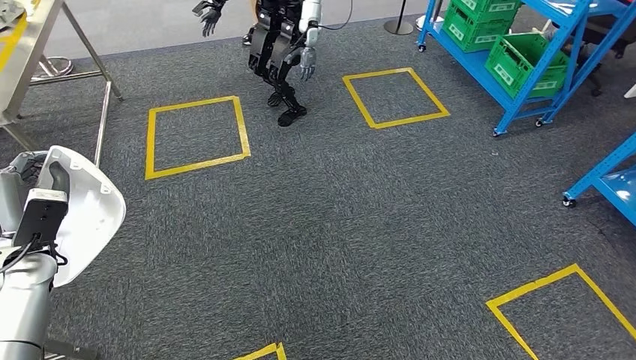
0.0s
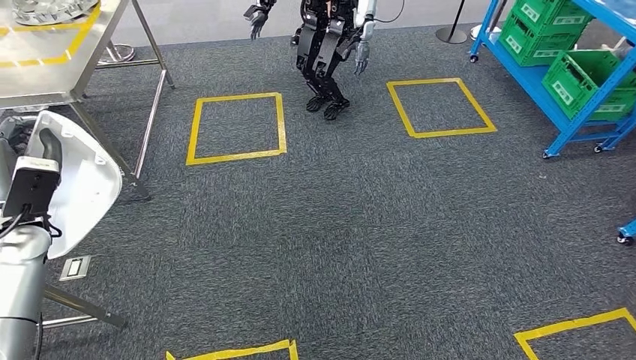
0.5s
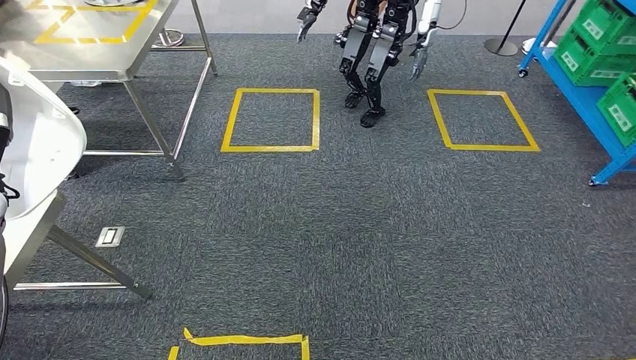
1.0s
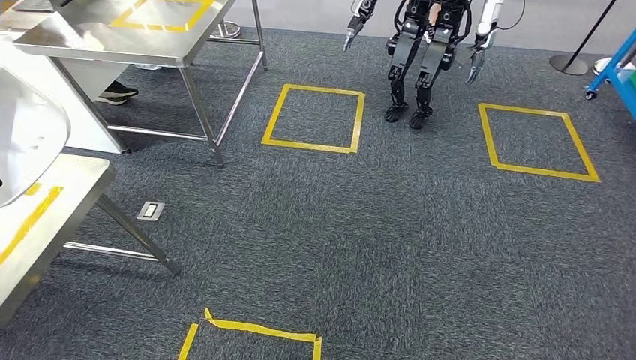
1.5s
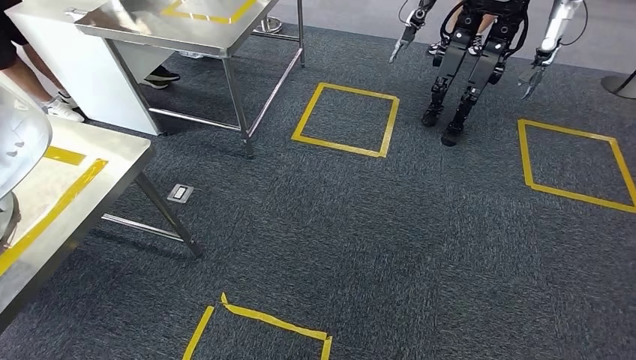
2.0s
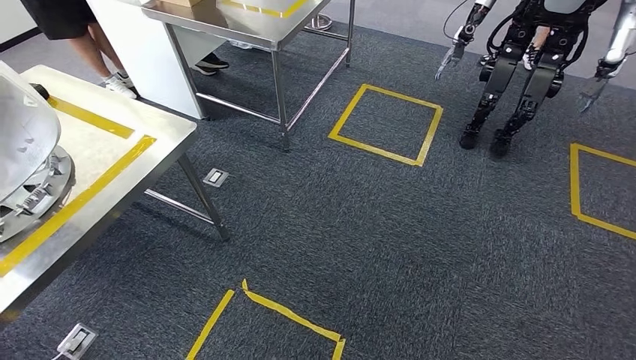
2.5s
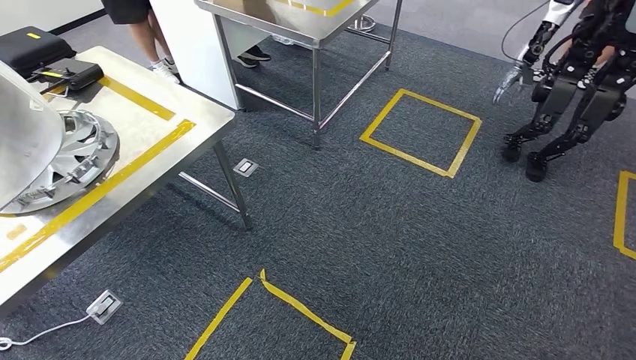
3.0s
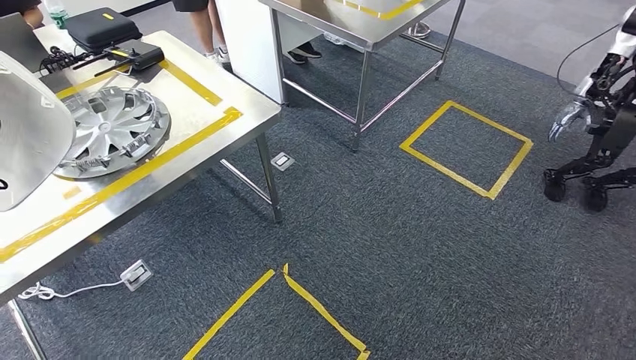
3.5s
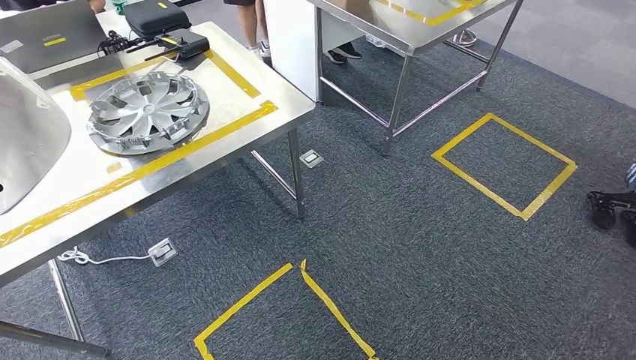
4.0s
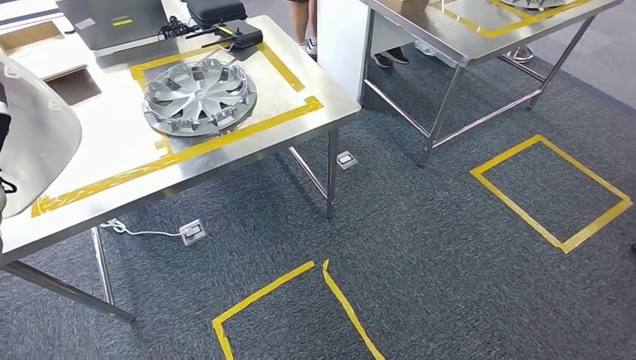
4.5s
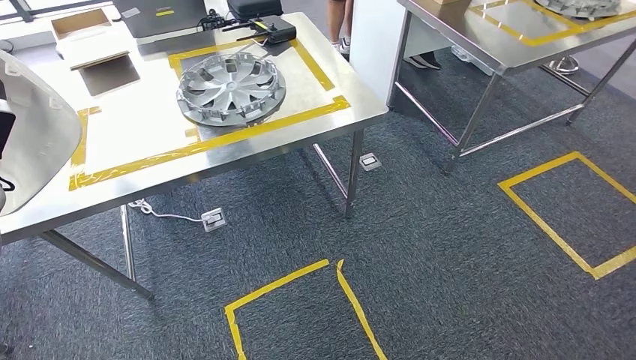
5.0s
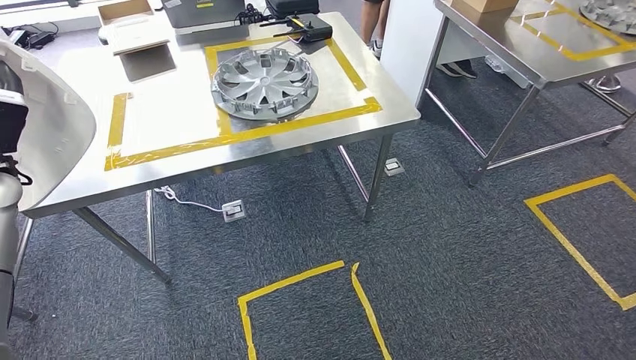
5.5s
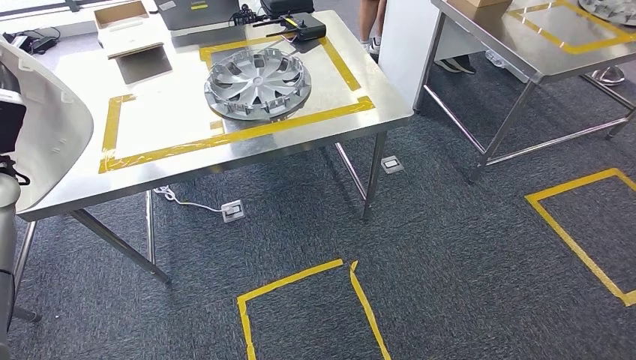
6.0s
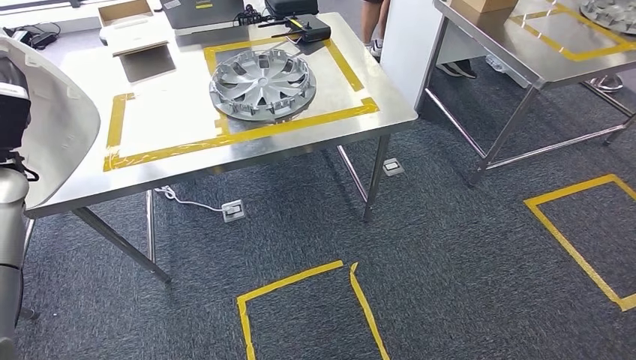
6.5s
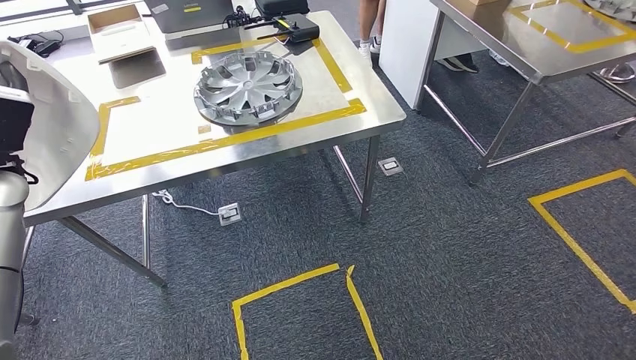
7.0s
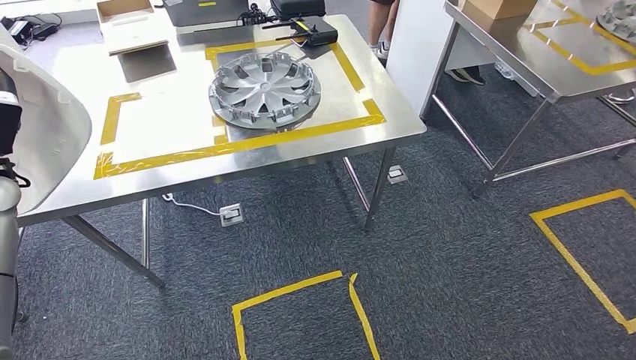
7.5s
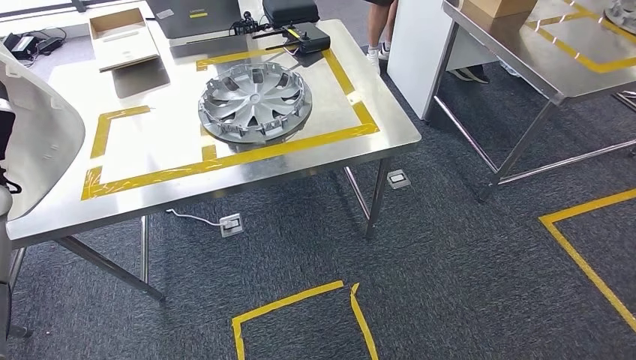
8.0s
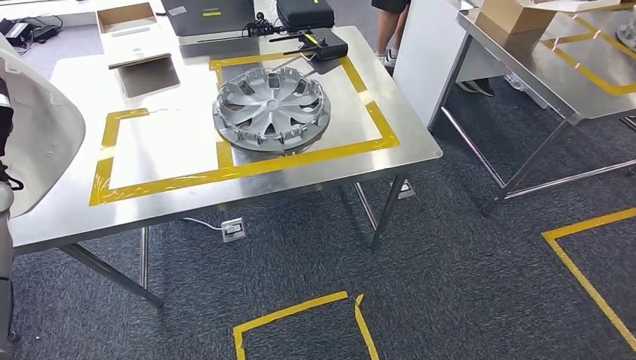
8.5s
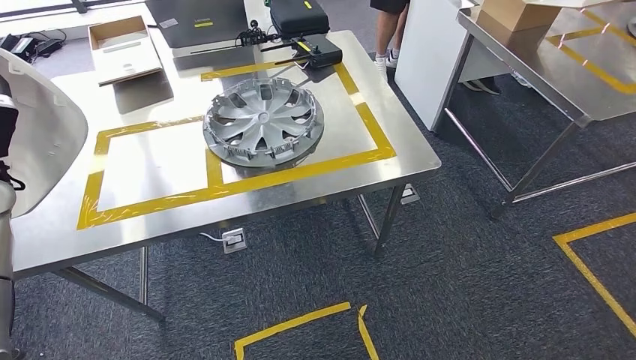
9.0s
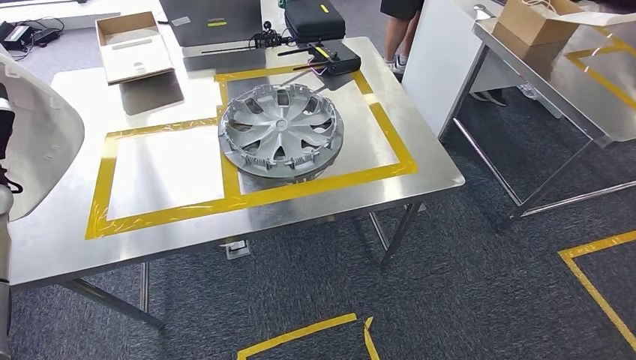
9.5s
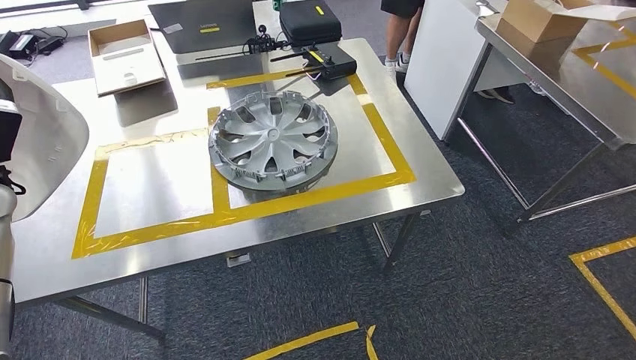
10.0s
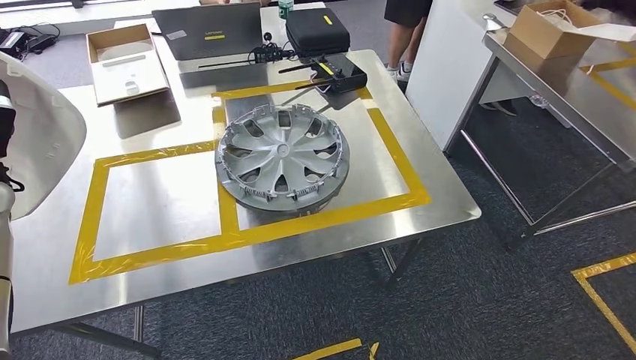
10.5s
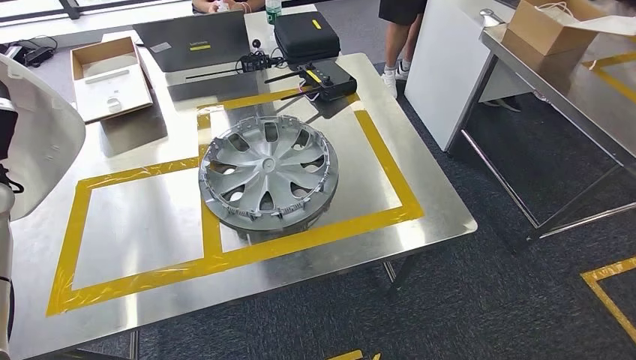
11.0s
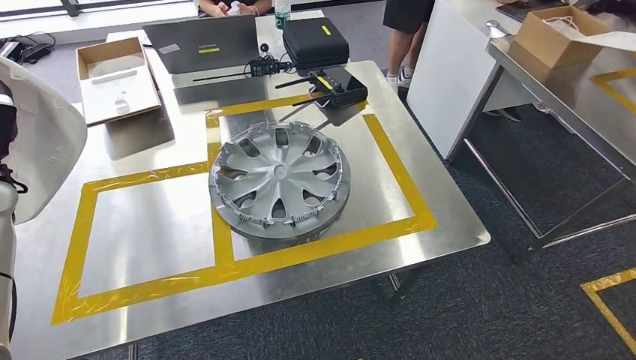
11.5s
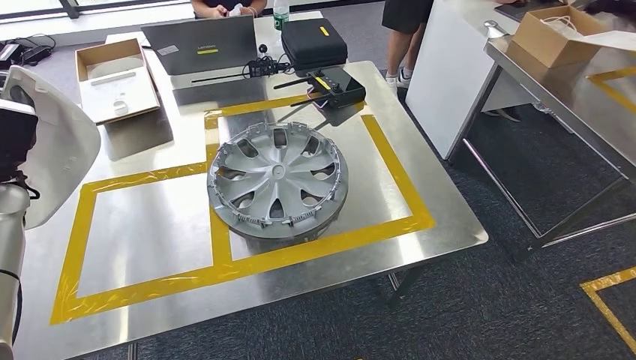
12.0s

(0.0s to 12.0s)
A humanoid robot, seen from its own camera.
Step, 0.0s - 8.5s: Move the large parts to the workbench.

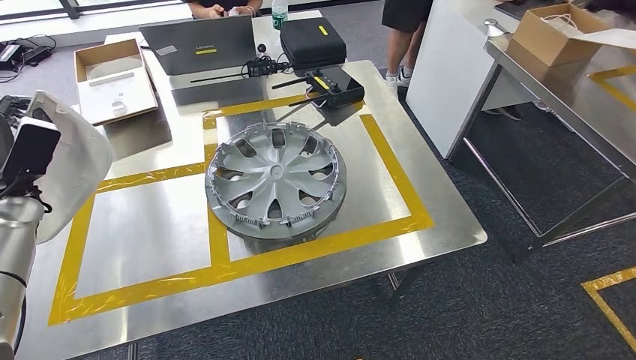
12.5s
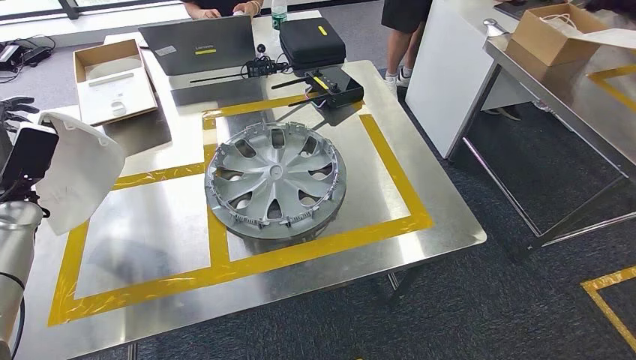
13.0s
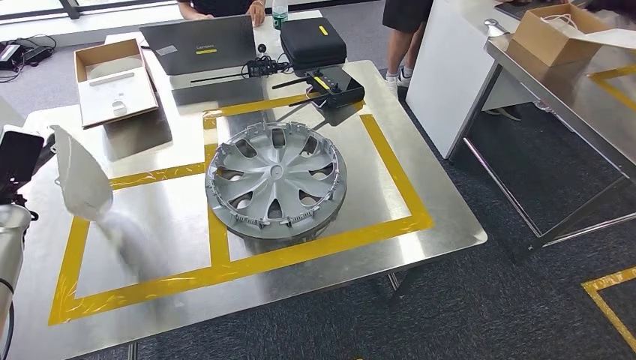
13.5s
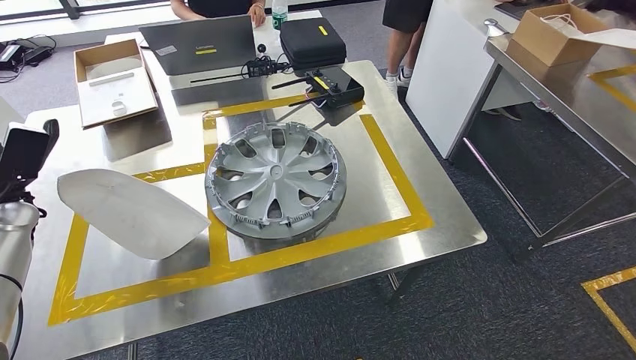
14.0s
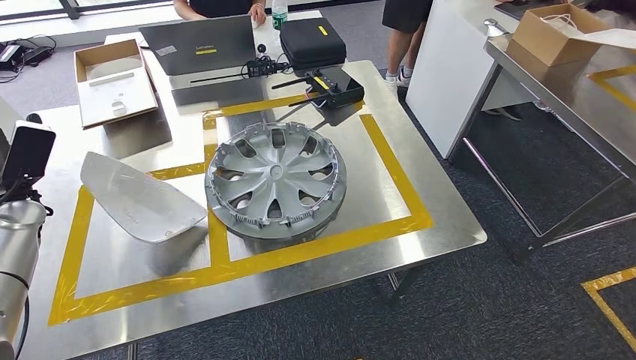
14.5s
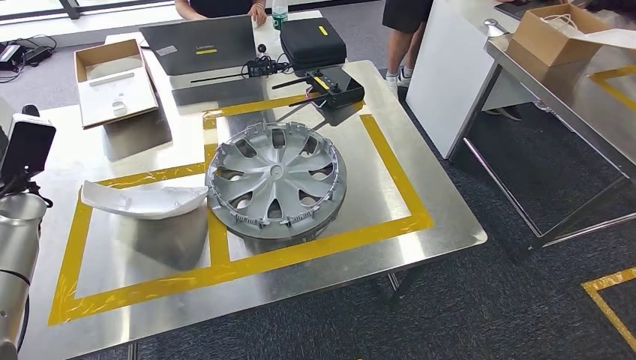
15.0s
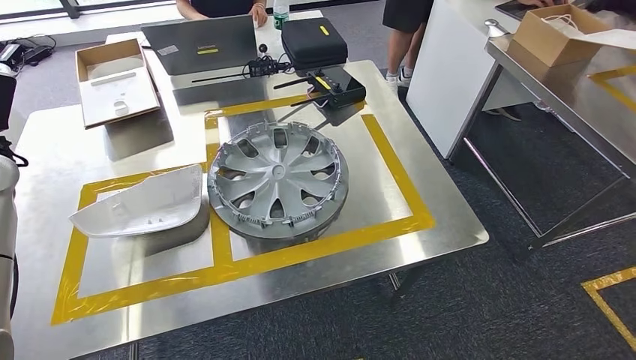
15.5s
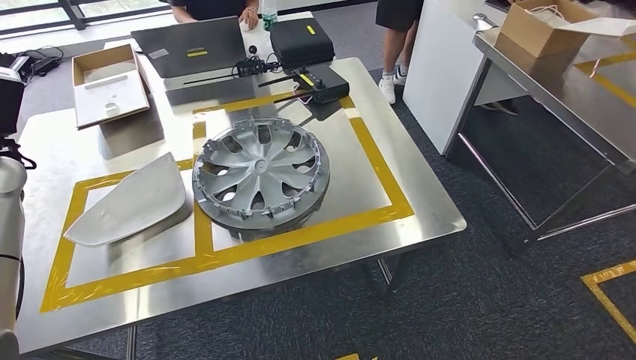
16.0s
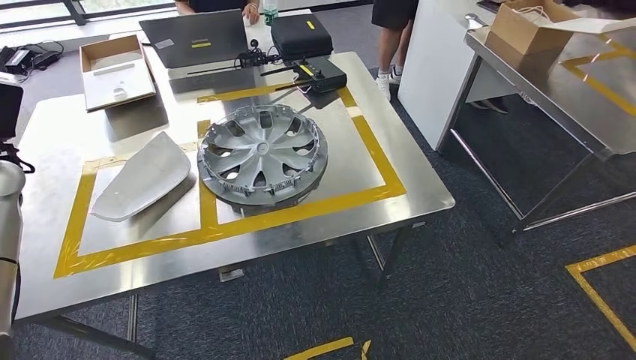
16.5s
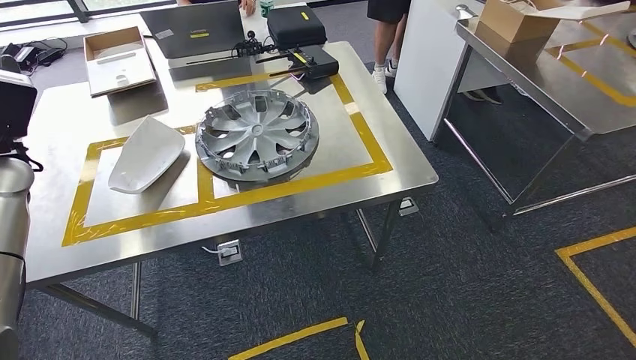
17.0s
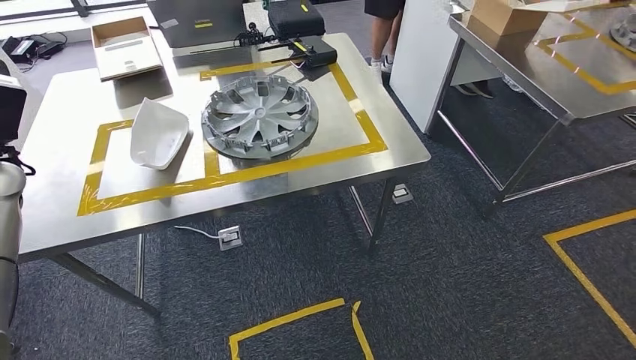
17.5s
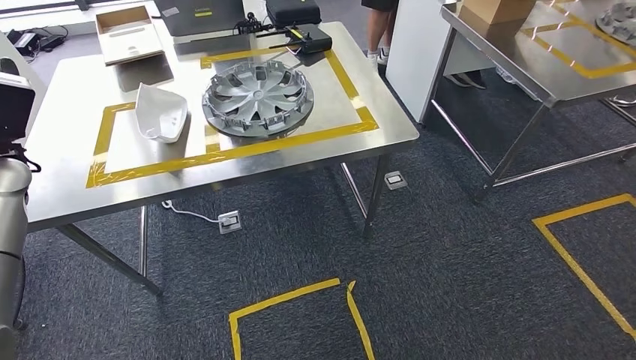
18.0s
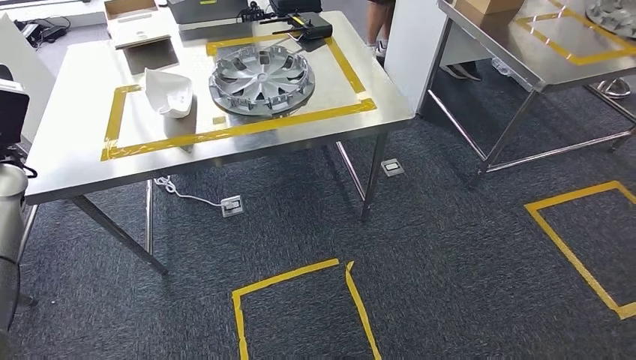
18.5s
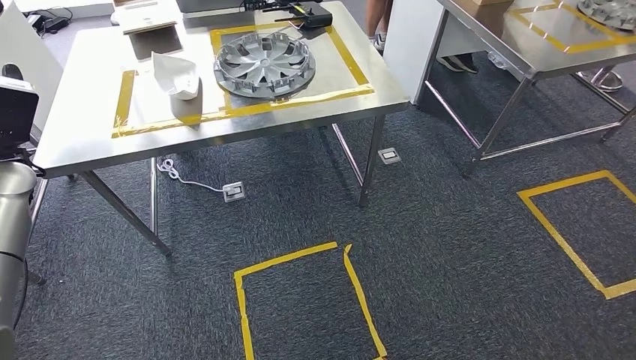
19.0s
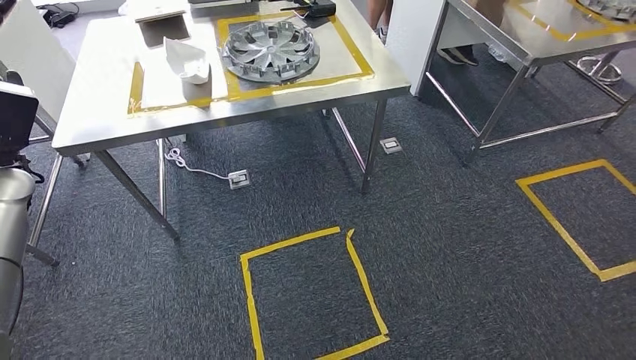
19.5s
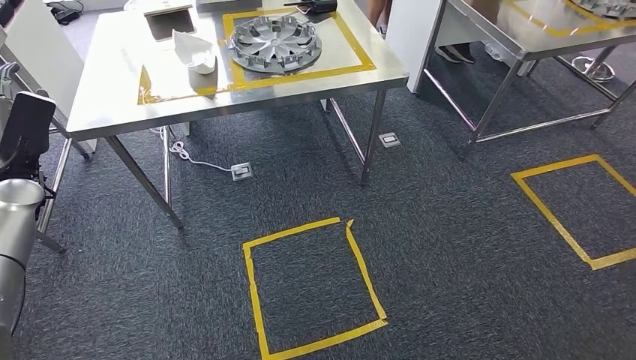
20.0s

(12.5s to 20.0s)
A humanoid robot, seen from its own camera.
Step, 12.5s - 15.0s: Insert the large parts into the corresponding slots on the workbench.
Step, 15.5s - 20.0s: Return to the initial position at the shelf.
12.5s - 14.5s: The hands stay close to where they were, moving slightly.

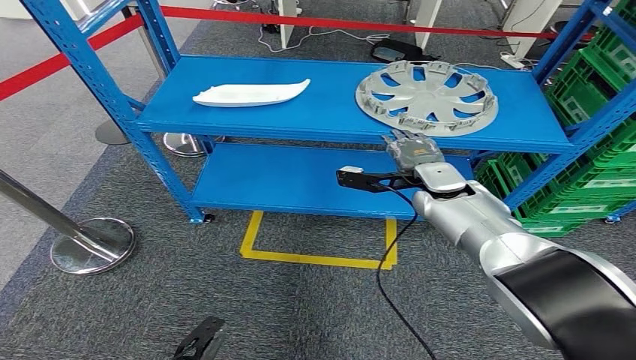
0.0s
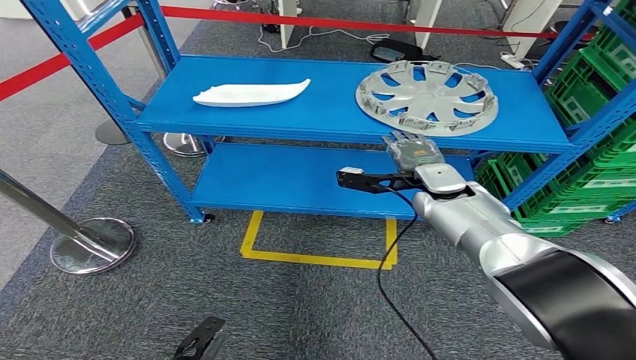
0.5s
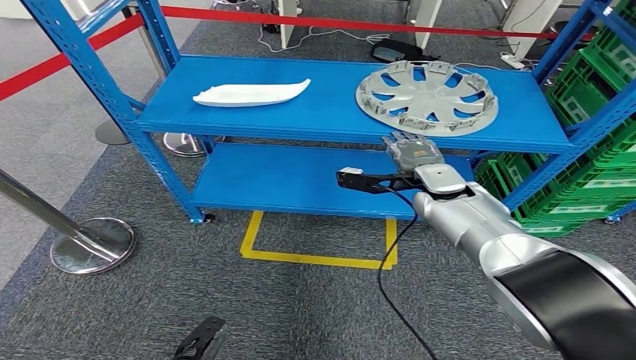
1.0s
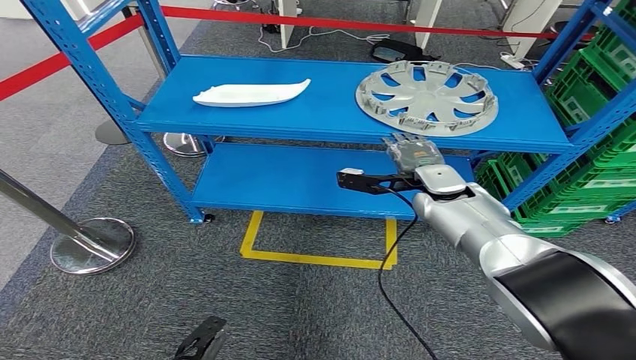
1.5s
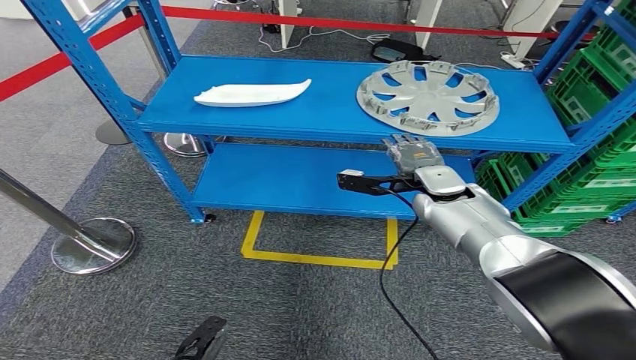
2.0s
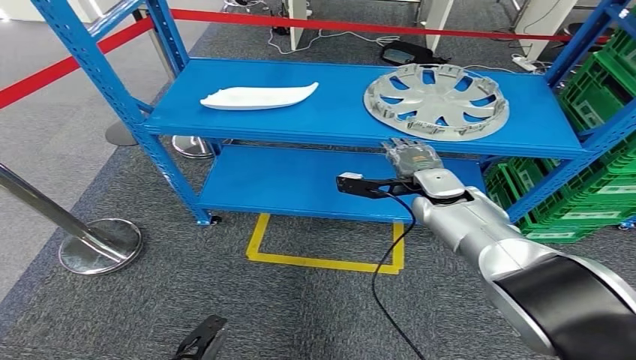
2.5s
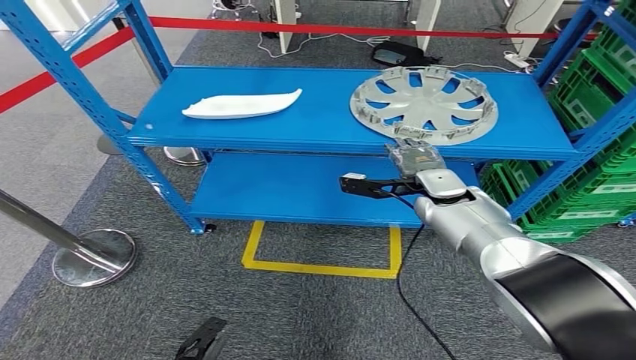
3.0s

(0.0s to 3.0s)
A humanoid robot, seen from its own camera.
0.0s - 1.5s: The two hands keep their place.
